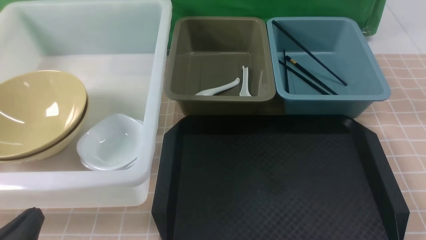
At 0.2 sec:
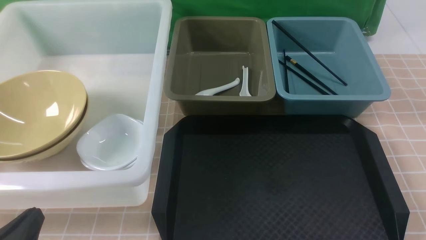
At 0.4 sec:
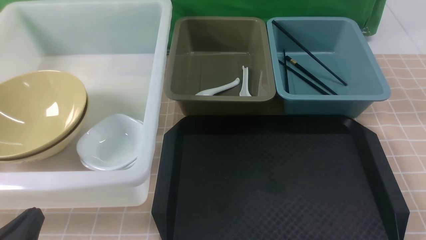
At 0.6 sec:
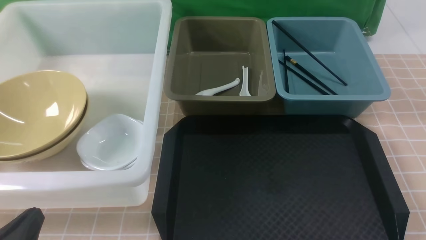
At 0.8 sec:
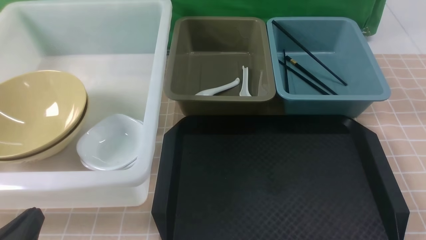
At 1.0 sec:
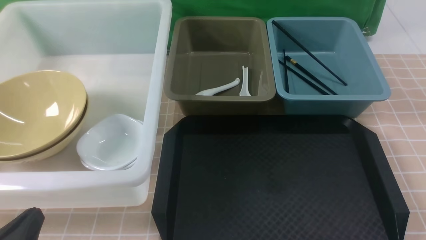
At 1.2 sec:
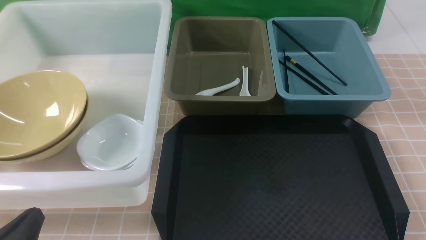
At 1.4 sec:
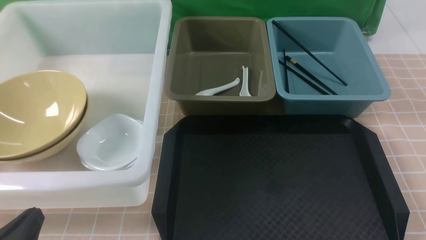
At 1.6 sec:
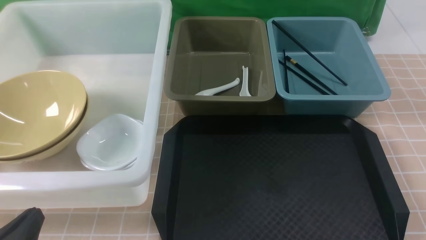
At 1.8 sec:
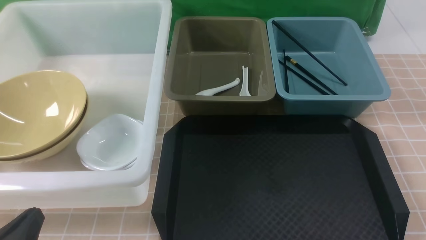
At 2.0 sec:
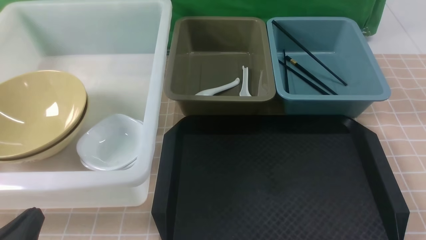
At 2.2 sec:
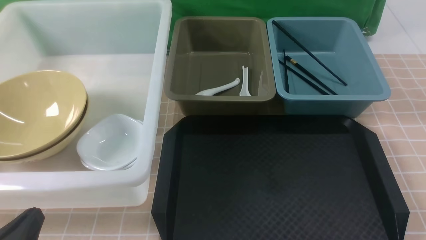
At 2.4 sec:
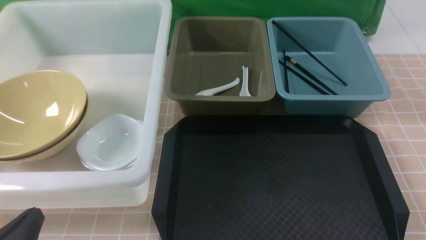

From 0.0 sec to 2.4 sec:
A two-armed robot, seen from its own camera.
Task of the whole recording: on brown table put chopsticks spoon bowls plates into blue grey white boxes.
From 0.0 sec to 2.4 sec: Both grippers stay put.
